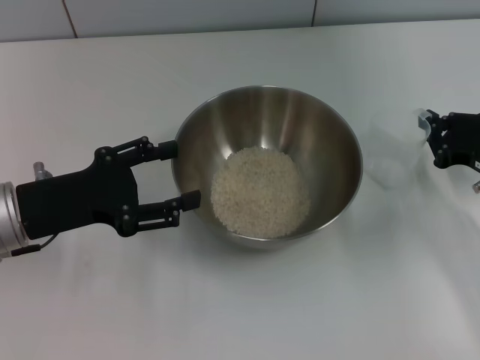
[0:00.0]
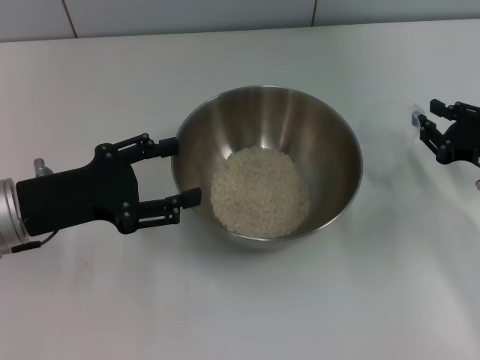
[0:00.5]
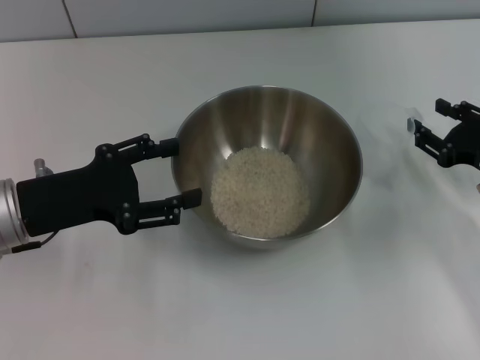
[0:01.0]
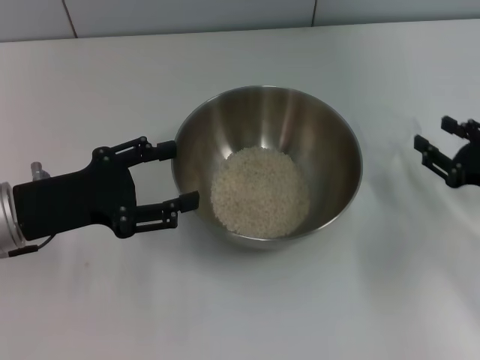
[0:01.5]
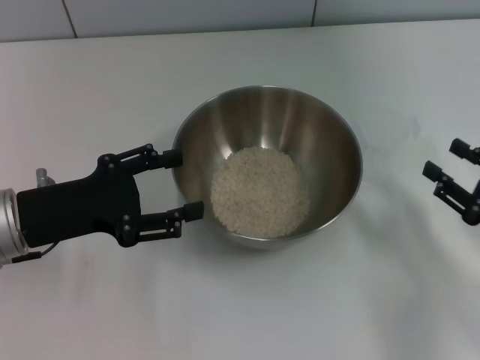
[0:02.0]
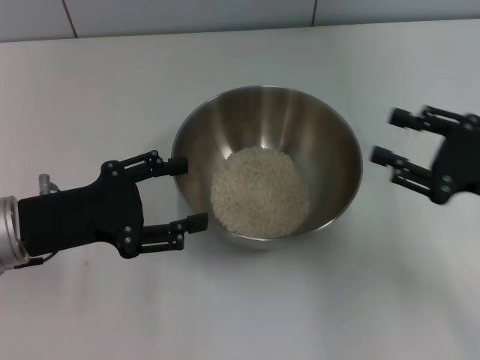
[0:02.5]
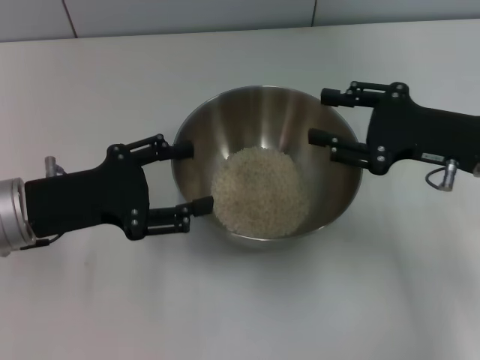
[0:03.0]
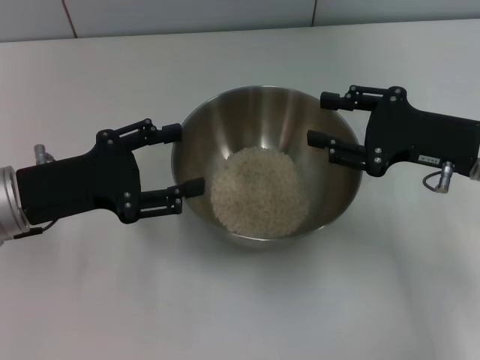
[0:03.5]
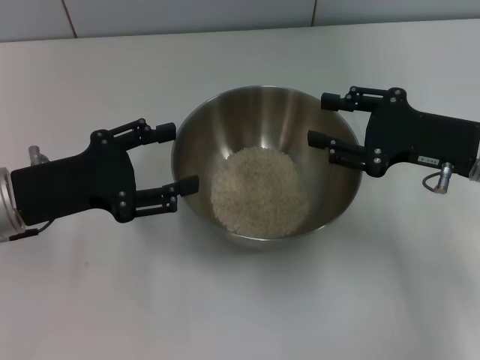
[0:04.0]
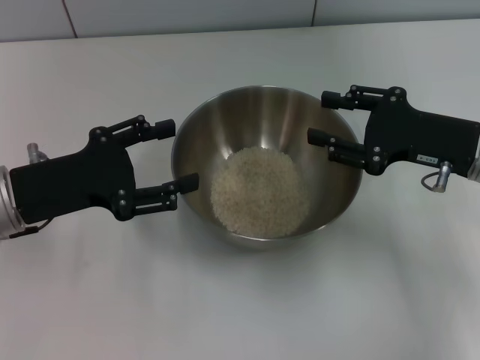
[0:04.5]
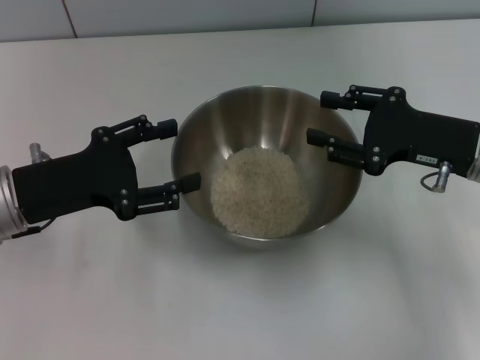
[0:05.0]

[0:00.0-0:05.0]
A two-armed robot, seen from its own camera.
Task of the whole recording: Place the bowl in the middle of the table with one hand and pour the rice from the grain cup into it with the other hand.
0:00.0 to 0:02.5: The right gripper travels upward by roughly 5 cm, and opens.
0:02.5 to 0:05.0: The right gripper is displaced forward by approximately 5 cm.

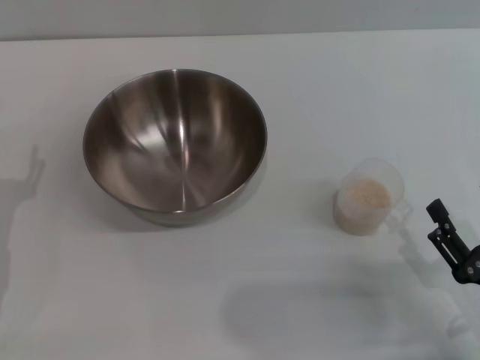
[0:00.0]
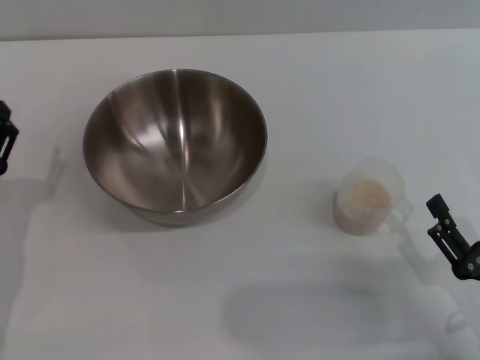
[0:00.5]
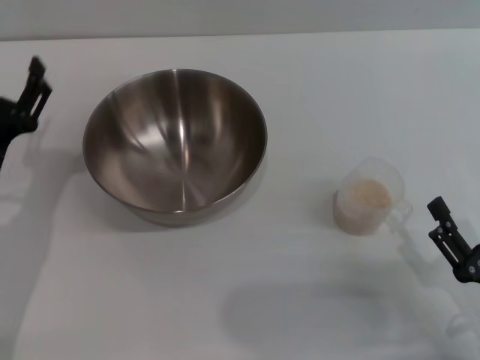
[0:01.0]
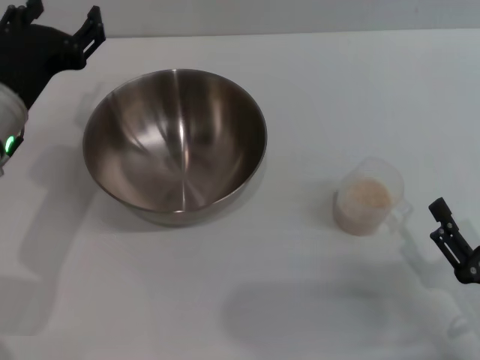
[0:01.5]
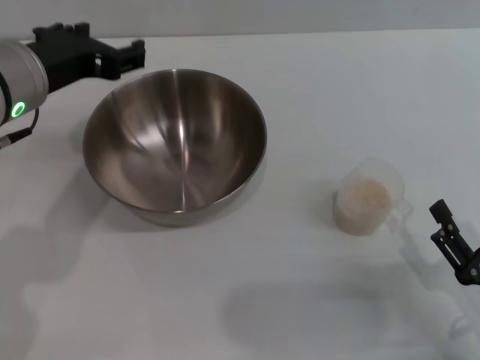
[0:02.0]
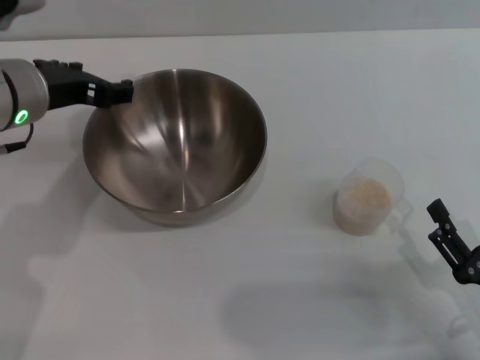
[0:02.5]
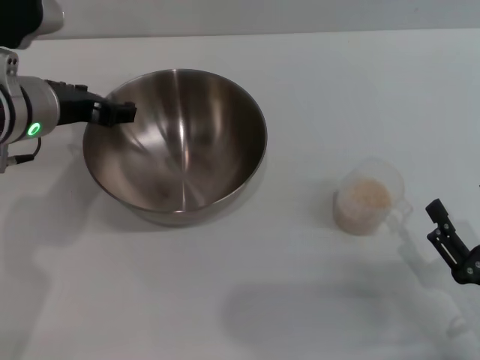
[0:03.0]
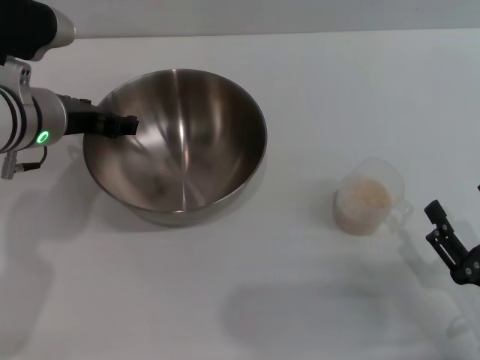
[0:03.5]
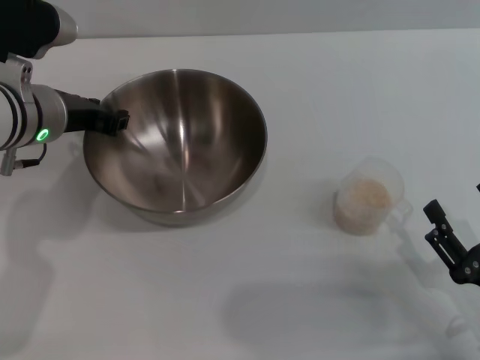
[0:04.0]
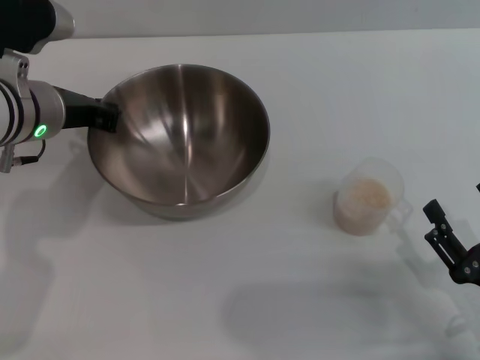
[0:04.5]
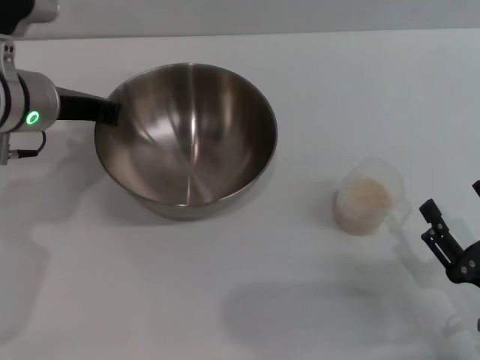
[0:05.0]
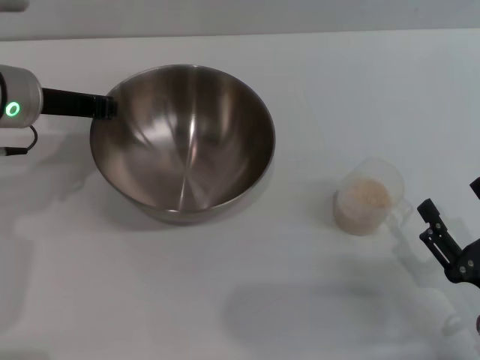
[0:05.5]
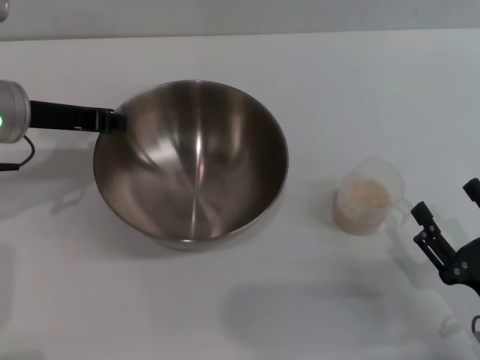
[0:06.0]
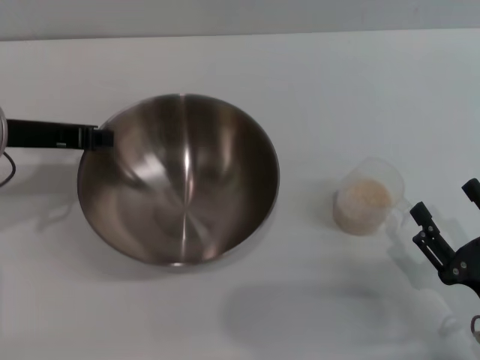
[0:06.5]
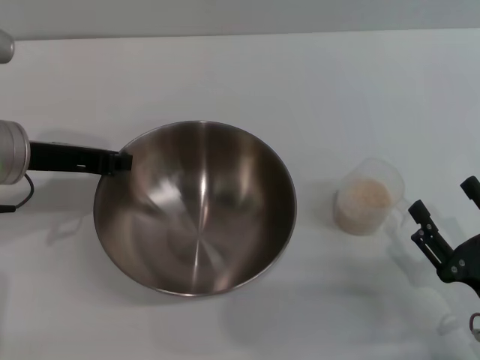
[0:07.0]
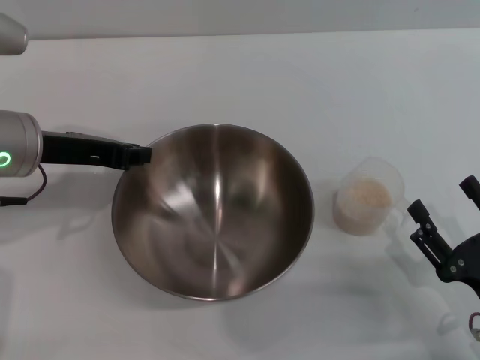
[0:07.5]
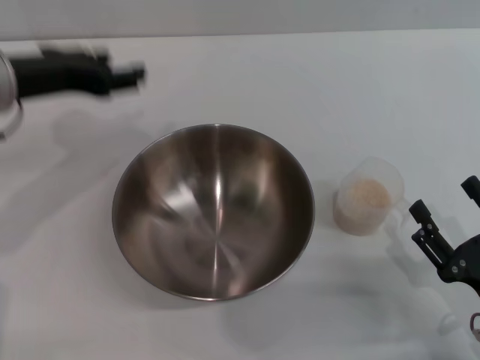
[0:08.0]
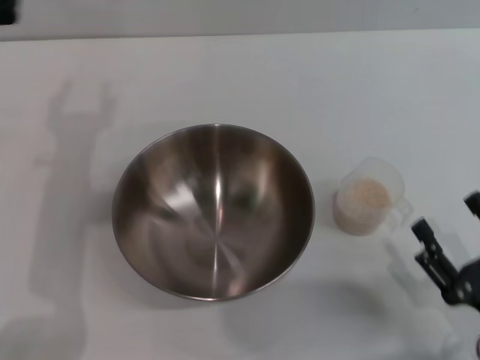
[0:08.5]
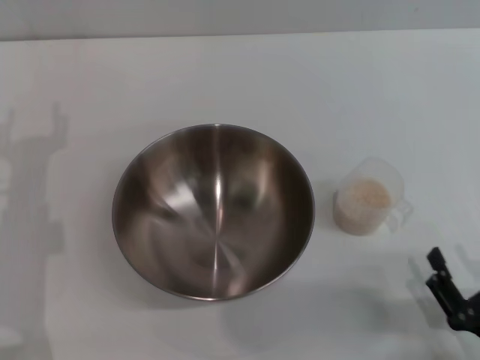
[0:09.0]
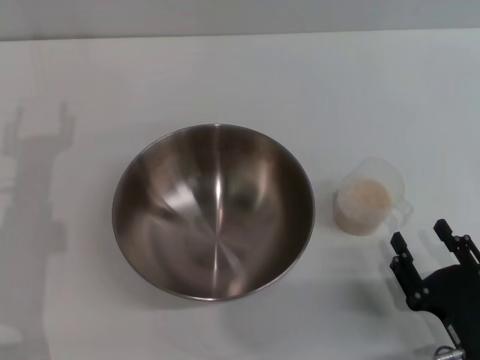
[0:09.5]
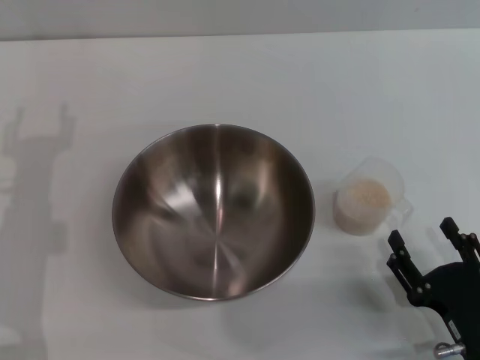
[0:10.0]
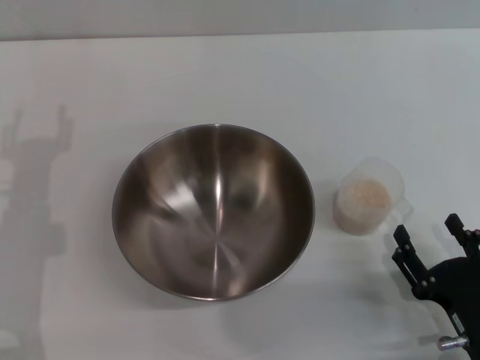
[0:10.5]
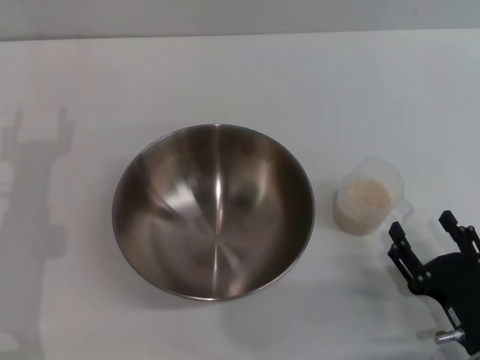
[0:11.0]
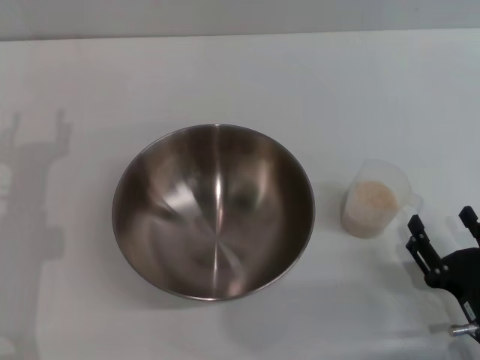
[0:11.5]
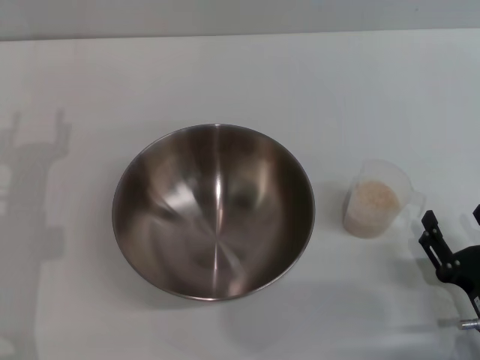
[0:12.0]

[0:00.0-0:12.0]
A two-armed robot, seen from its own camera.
Task of the whole recording: Place the bowl in the middle of the table with one hand and pour the rice from the grain cup into it with the other hand.
Step, 0:00.0 to 0:05.5: Pick up the bowl with the left gripper.
Step, 0:06.0 to 0:07.5: Place the bowl in the center of view with the left gripper.
0:00.0 to 0:02.0: The left gripper heads upward, to the right and forward, covering approximately 20 cm.
0:02.0 to 0:04.0: The left gripper moves downward, roughly 5 cm.
0:04.0 to 0:06.0: The left gripper closes its fingers.
0:06.0 to 0:08.0: The left gripper shifts by roughly 5 cm, and opens its fingers.
0:08.0 to 0:10.0: The left gripper is displaced downward and backward by roughly 15 cm.
0:10.0 to 0:12.0: There are only small adjustments of the grippers.

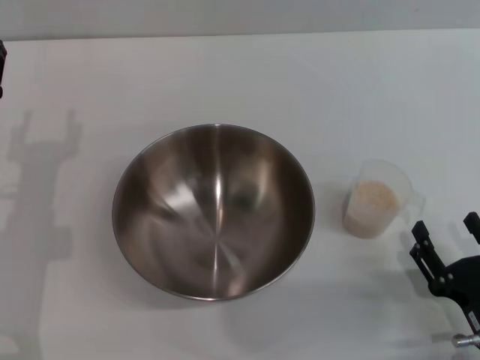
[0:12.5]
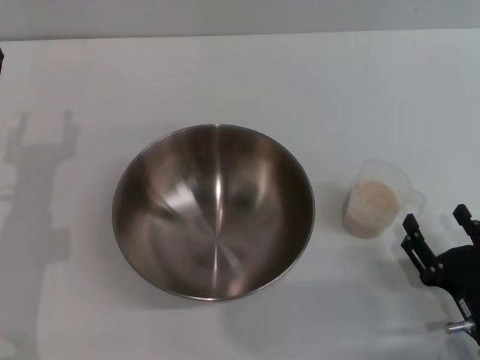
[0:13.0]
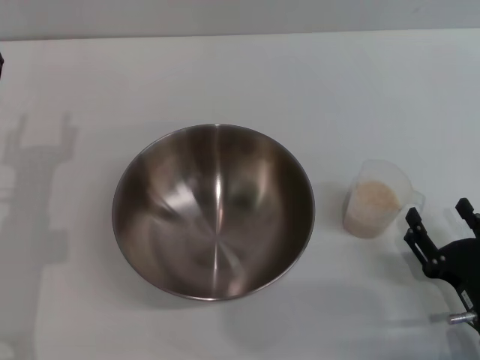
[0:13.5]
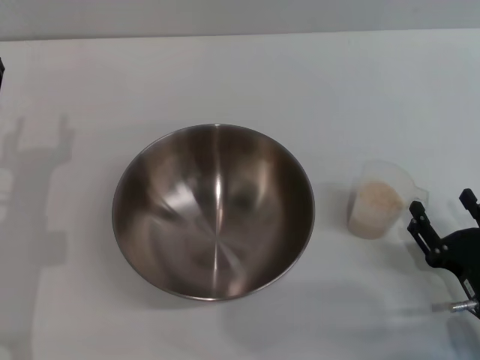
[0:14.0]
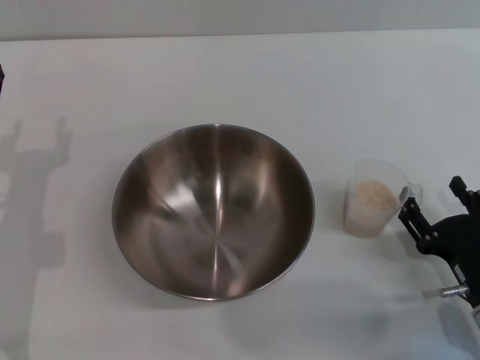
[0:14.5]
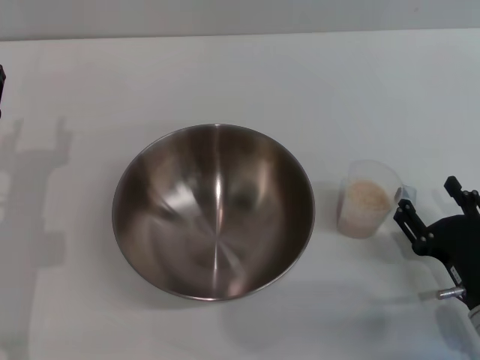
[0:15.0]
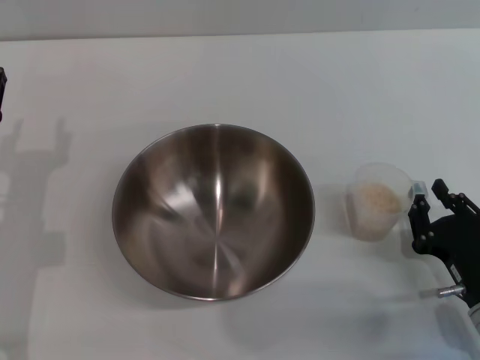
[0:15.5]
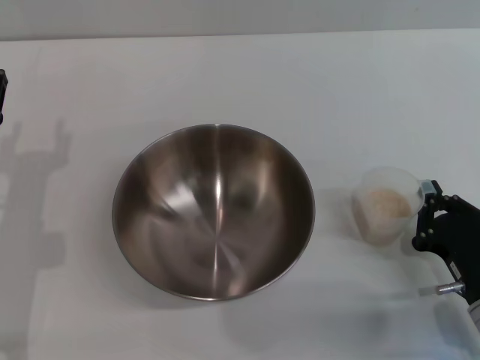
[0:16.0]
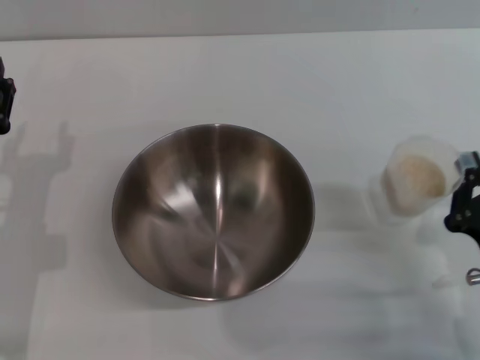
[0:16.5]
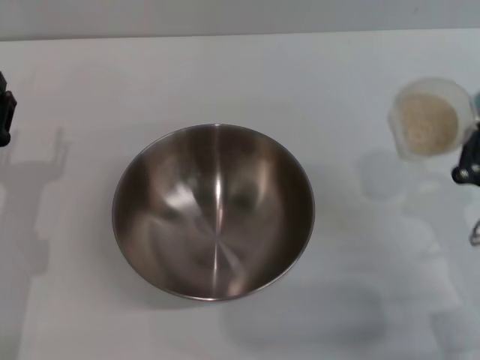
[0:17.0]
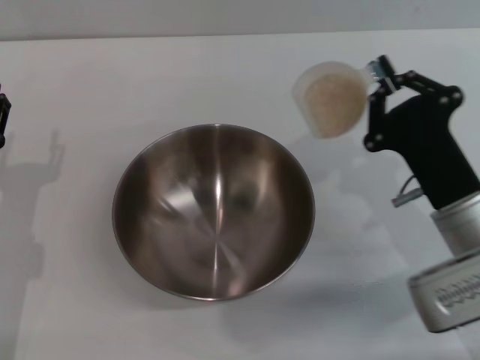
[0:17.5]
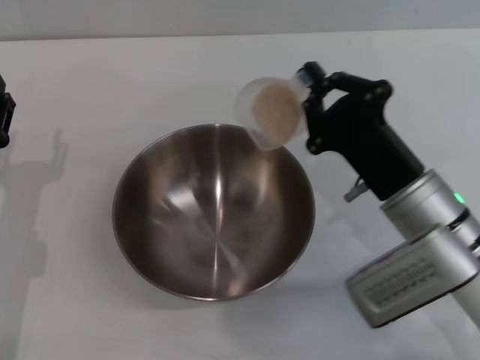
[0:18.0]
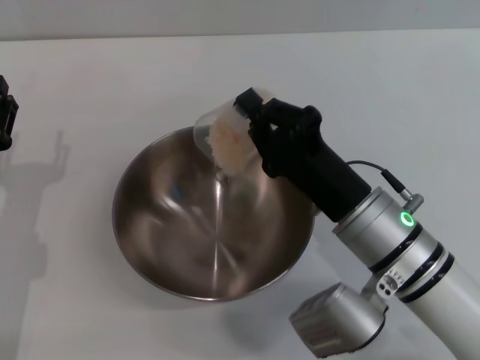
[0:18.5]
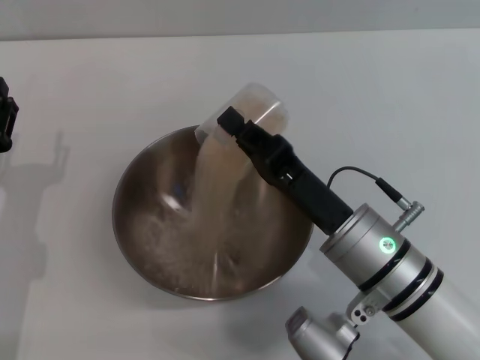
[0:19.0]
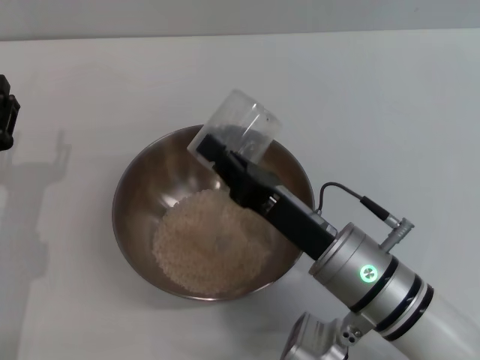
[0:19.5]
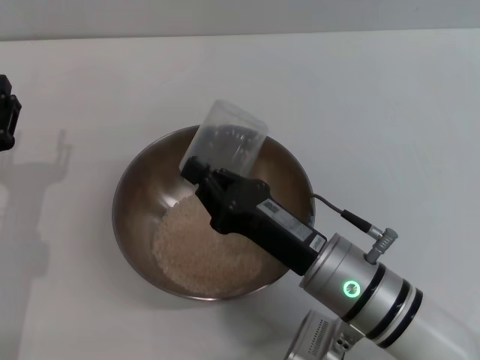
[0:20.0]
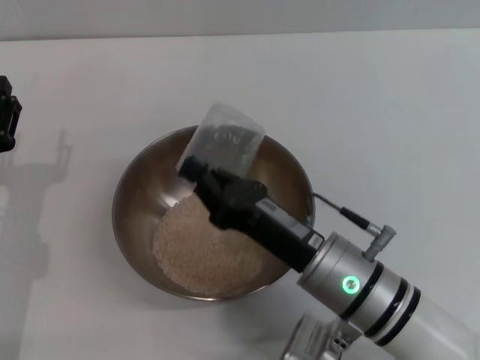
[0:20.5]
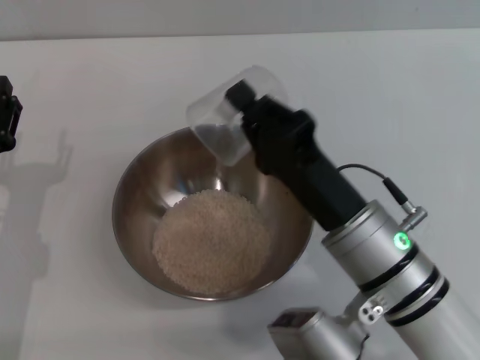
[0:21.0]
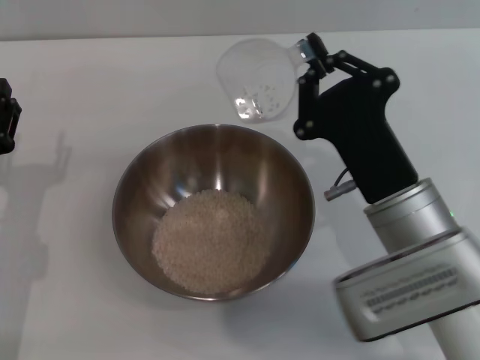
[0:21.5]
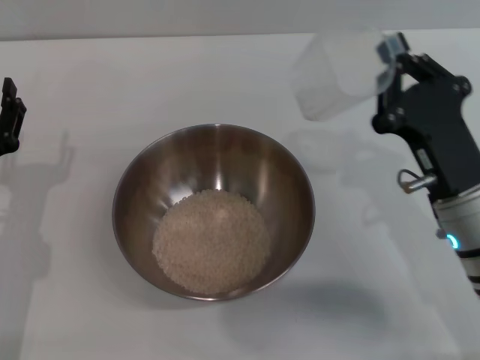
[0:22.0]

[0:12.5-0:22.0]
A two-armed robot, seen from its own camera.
Task of the whole recording: Place the bowl in the middle of the table with one hand and pour the rice from the grain cup into it with the other hand.
Step, 0:12.5 to 0:16.5: Pick up the cup with rice in it with the right gripper.
Step, 0:17.0 to 0:21.5: Pour the rice from the cup into the bowl with the right gripper.
0:12.5 to 0:14.5: The right gripper moves forward, roughly 5 cm.
0:14.5 to 0:16.5: The right gripper closes up.
0:16.5 to 0:18.0: The right gripper is displaced forward and to the left by roughly 15 cm.
0:18.0 to 0:20.0: The right gripper is displaced to the left by roughly 5 cm.
0:20.0 to 0:22.0: The right gripper moves to the right, about 10 cm.
